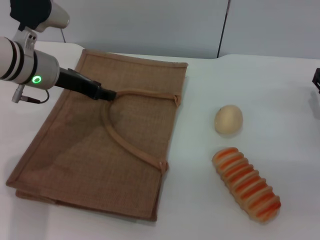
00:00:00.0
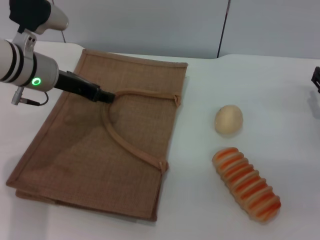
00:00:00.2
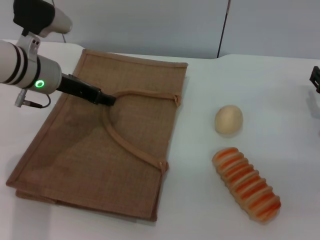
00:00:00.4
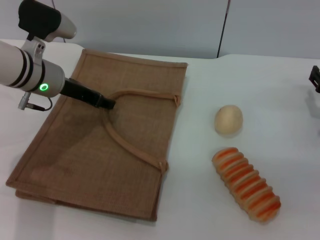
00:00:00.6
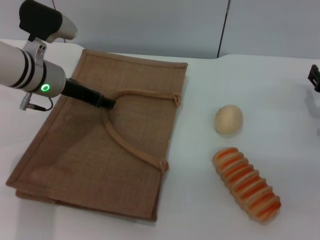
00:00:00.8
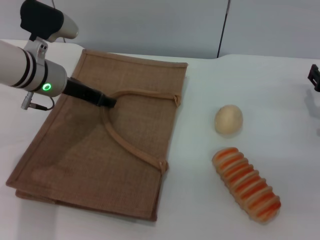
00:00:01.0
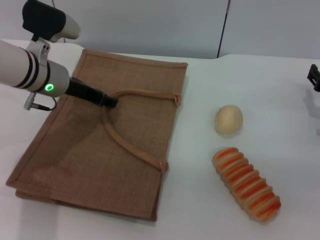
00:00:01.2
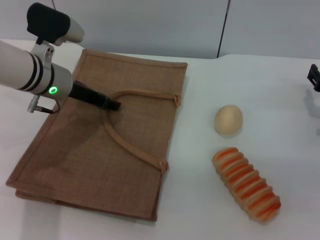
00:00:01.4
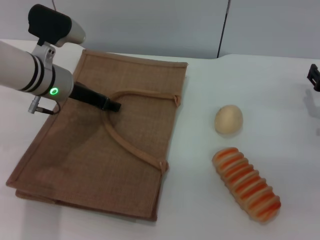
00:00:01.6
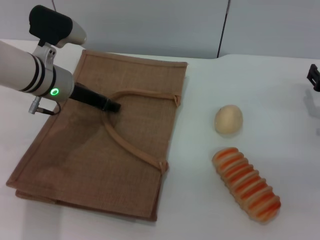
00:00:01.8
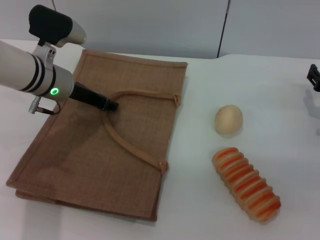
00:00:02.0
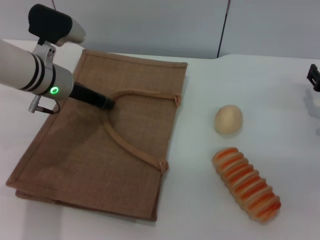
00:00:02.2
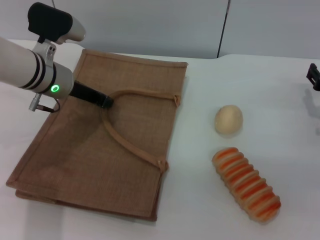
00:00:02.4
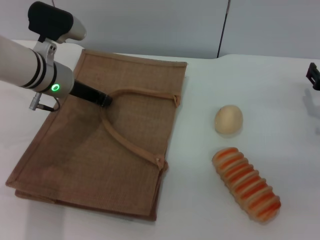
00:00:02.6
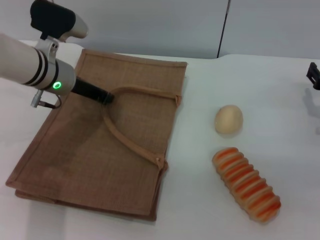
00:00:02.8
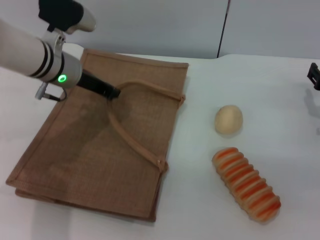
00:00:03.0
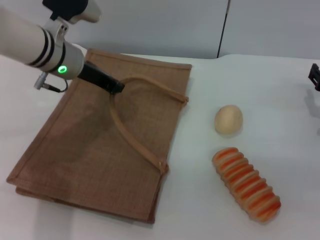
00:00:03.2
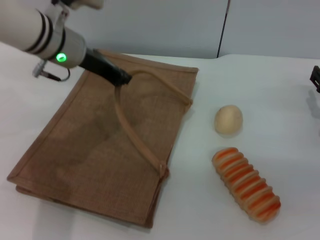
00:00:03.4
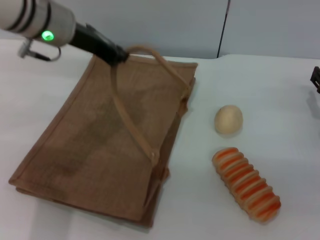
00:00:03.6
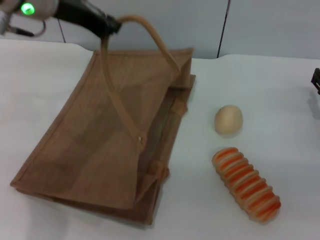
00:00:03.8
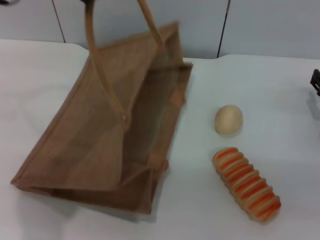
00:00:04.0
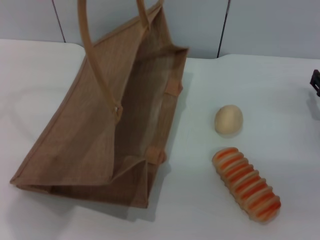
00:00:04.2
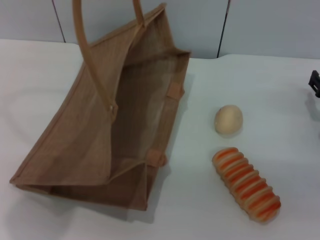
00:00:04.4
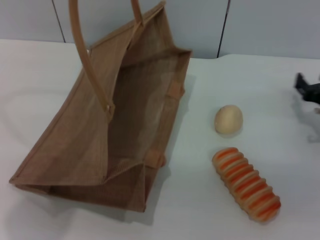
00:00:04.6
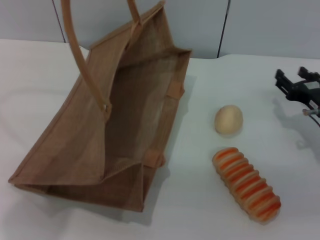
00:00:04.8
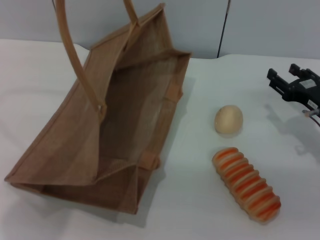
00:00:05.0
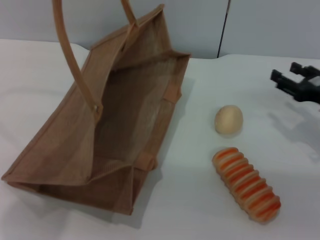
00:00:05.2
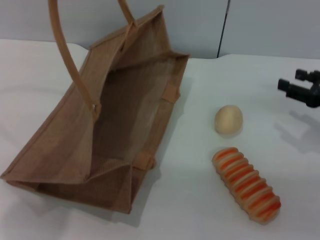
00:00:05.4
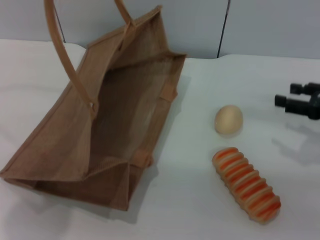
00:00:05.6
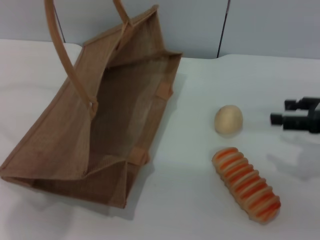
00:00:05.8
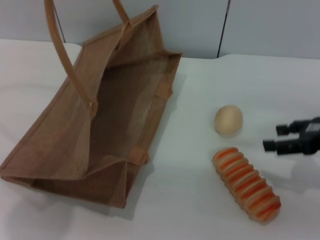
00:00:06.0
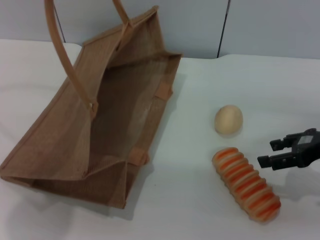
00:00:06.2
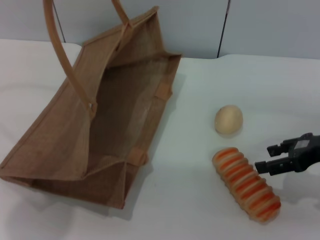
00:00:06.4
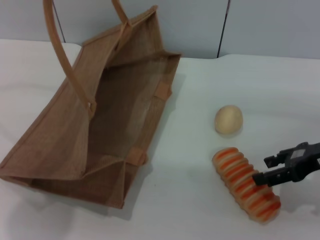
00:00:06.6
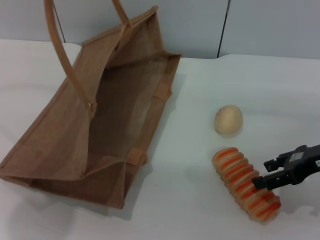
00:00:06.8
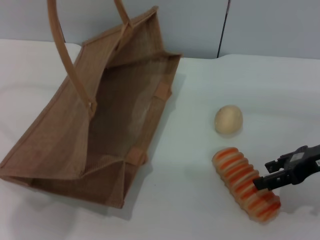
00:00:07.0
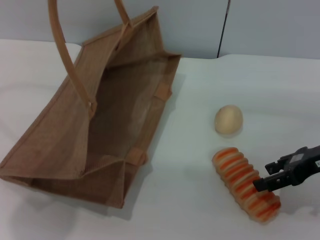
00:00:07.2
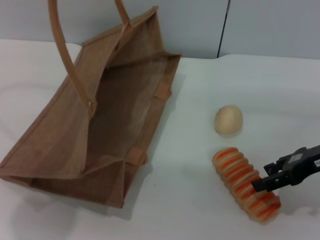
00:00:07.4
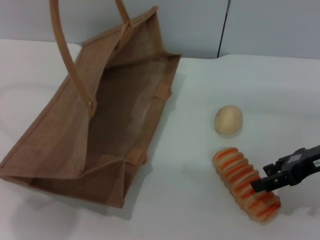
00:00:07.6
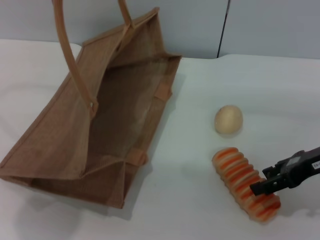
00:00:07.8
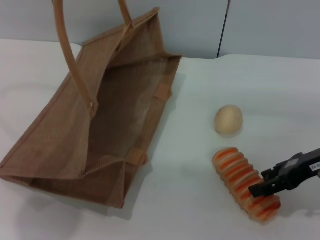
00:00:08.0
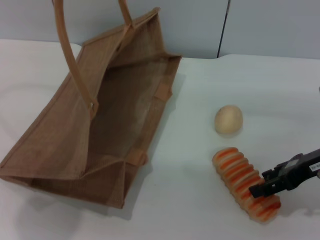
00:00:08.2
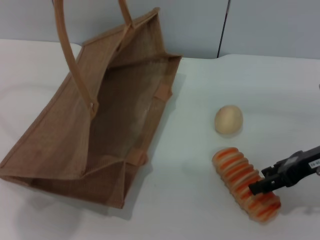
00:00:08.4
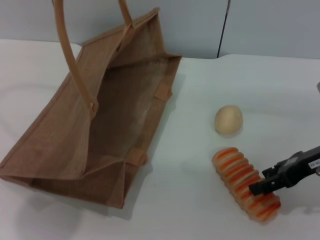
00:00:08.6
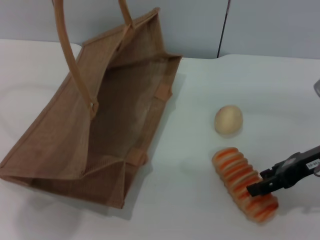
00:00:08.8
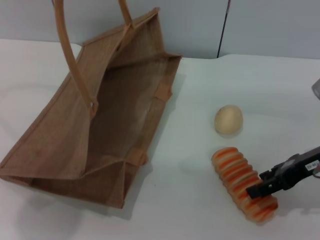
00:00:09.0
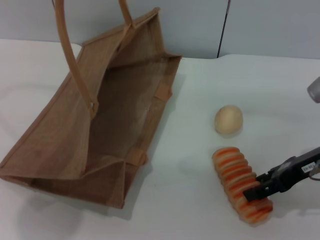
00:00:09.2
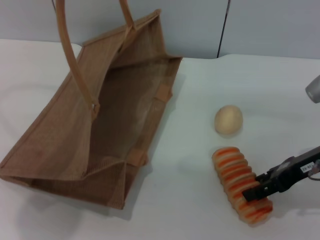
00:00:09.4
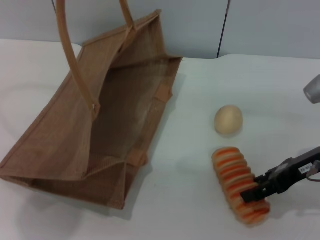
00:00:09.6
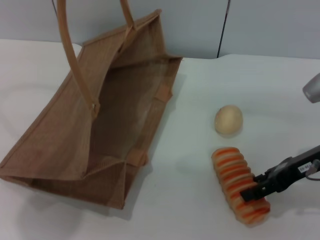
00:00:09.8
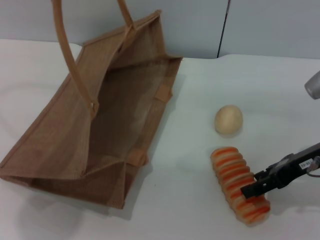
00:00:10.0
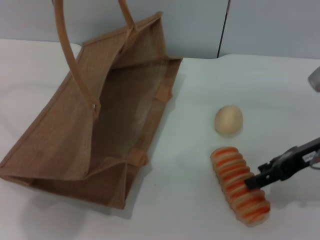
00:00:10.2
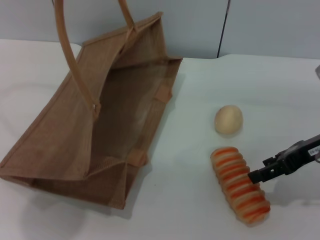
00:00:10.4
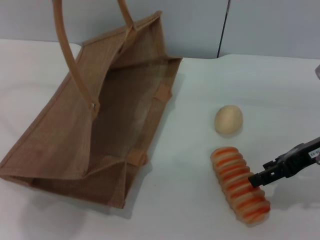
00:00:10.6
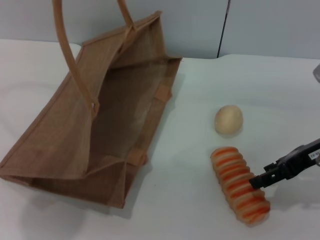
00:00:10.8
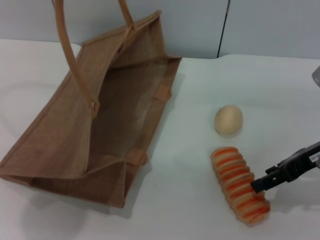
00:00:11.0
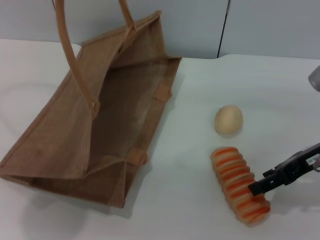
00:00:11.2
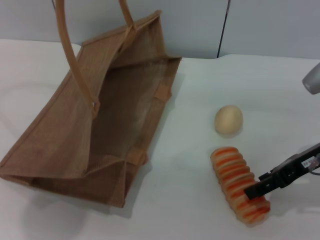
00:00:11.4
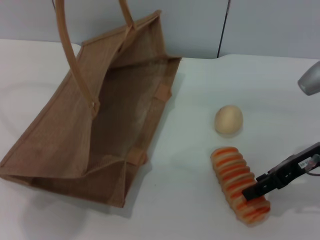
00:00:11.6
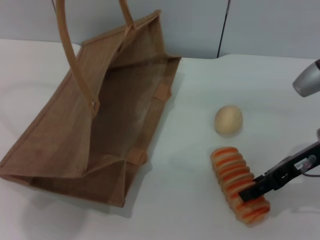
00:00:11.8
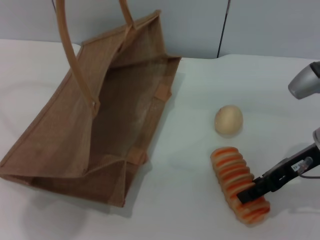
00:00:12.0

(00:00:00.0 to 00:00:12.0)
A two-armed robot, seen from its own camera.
Task of the whole recording: pick up the bread and egg yolk pastry from the table and place it in the brown handbag.
Step, 00:00:00.0 - 00:00:04.6: Lift the woven bag with the left gripper to open it.
00:00:00.0 - 00:00:01.6: There are only small adjustments of the grippers.
00:00:01.6 - 00:00:03.0: The left gripper closes up.
00:00:03.0 - 00:00:04.4: The left gripper travels upward and backward by roughly 25 cm.
00:00:04.4 - 00:00:06.0: The right gripper goes some 10 cm upward.
00:00:06.0 - 00:00:07.6: The grippers move only a little.
00:00:07.6 - 00:00:09.0: The two grippers keep their place.
00:00:09.0 - 00:00:12.0: The grippers stay close to where they were, moving slightly.

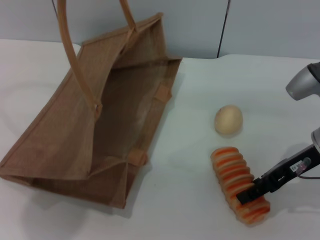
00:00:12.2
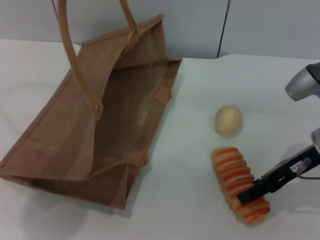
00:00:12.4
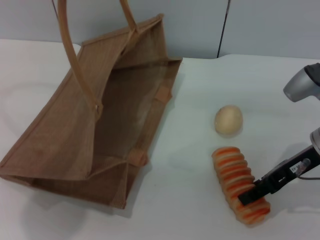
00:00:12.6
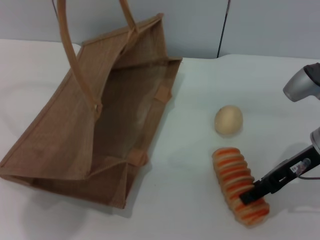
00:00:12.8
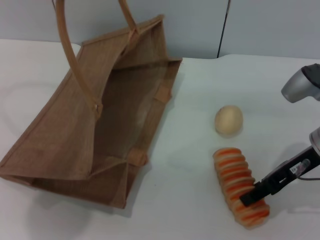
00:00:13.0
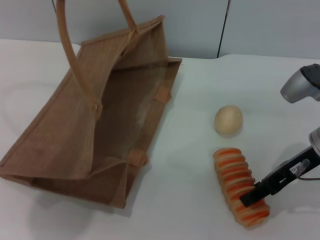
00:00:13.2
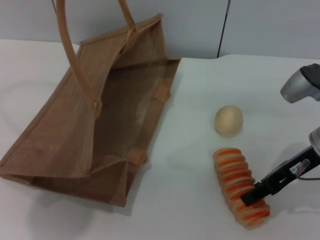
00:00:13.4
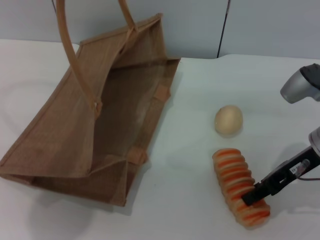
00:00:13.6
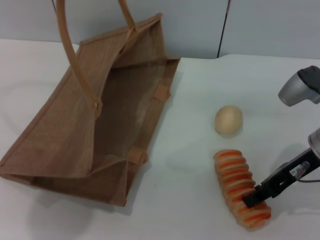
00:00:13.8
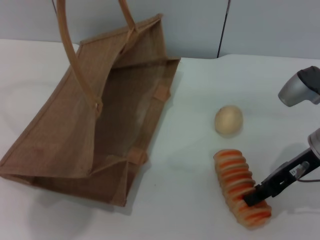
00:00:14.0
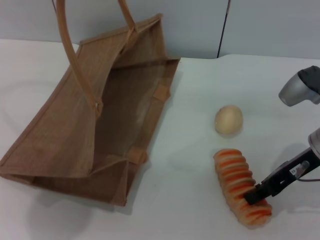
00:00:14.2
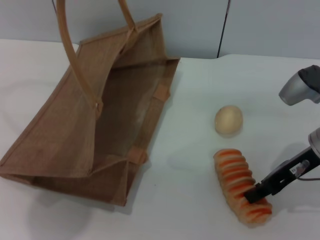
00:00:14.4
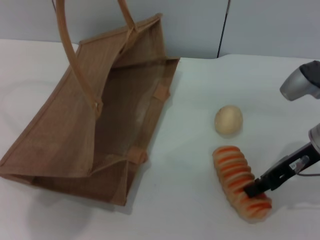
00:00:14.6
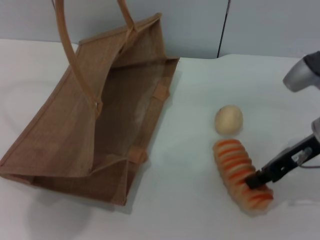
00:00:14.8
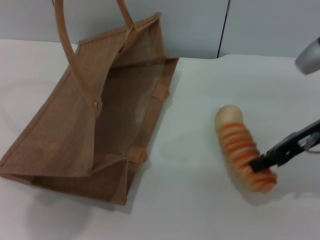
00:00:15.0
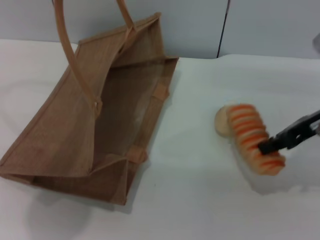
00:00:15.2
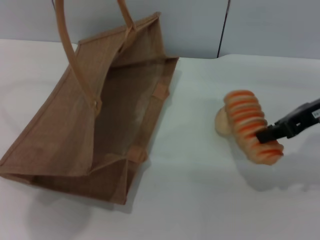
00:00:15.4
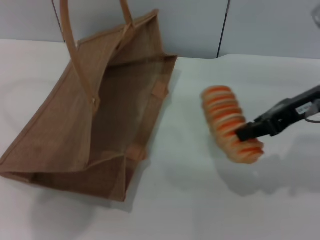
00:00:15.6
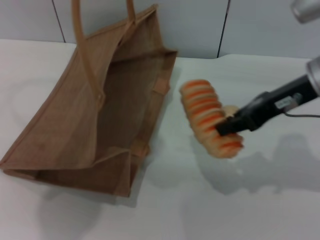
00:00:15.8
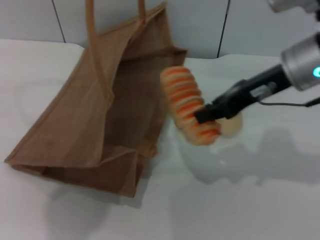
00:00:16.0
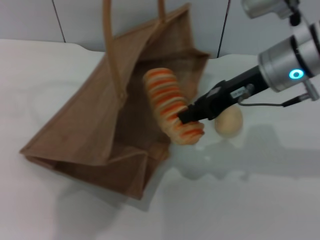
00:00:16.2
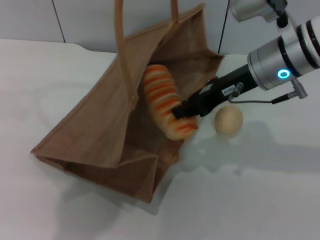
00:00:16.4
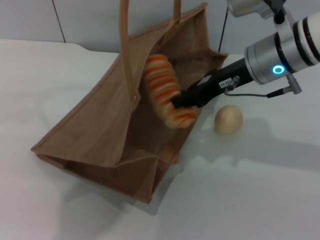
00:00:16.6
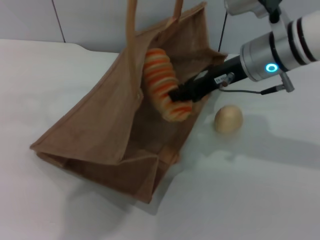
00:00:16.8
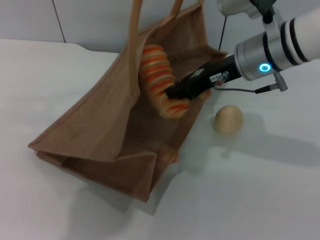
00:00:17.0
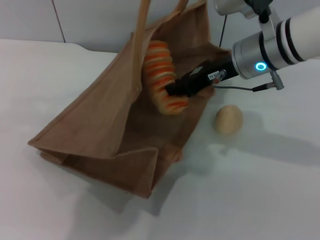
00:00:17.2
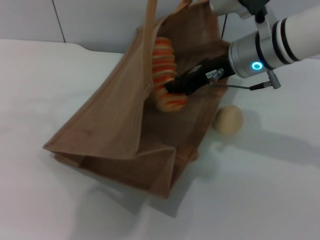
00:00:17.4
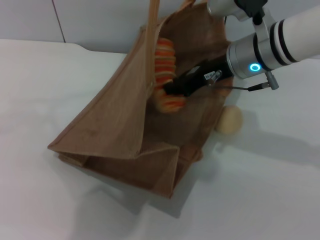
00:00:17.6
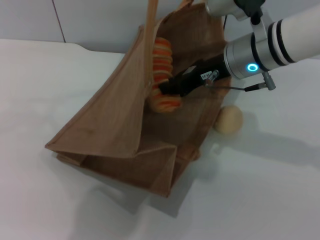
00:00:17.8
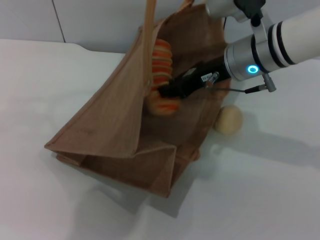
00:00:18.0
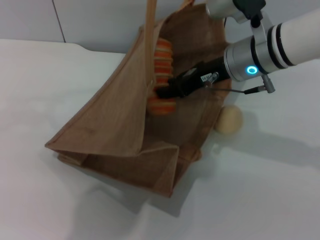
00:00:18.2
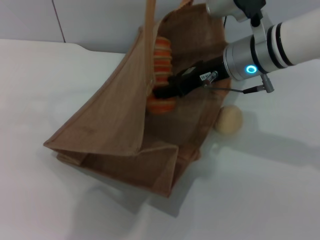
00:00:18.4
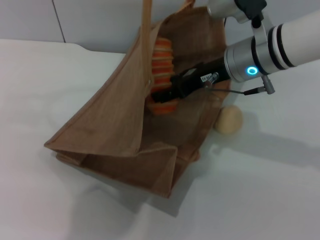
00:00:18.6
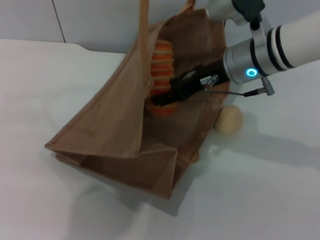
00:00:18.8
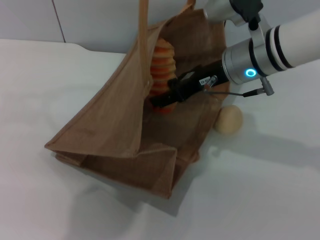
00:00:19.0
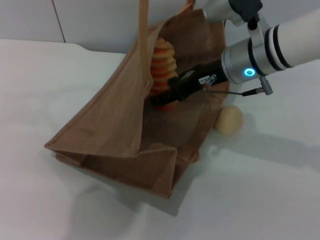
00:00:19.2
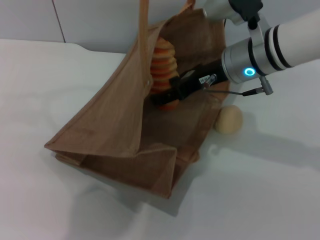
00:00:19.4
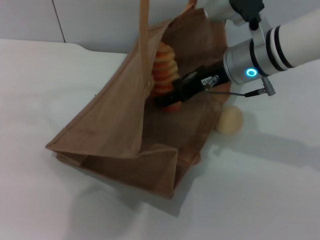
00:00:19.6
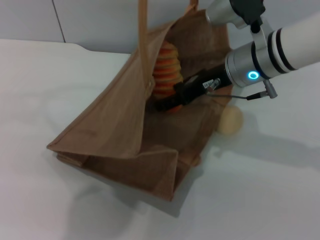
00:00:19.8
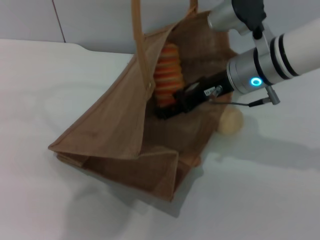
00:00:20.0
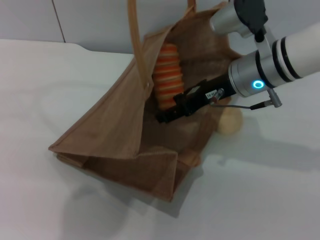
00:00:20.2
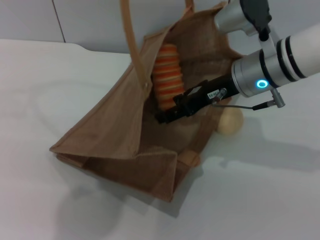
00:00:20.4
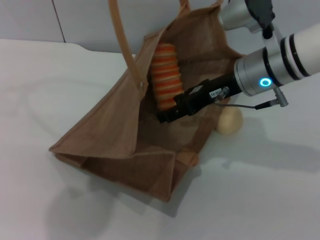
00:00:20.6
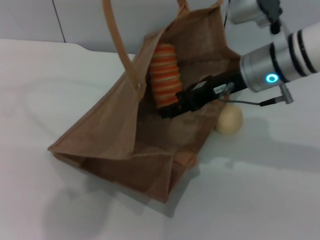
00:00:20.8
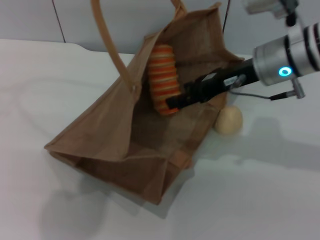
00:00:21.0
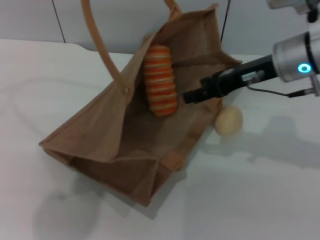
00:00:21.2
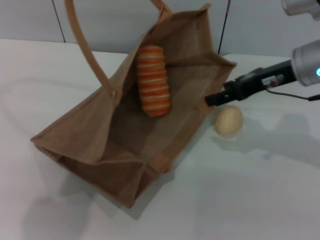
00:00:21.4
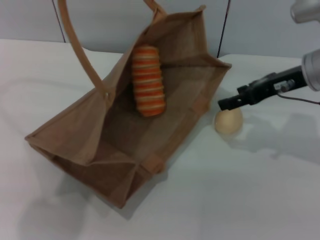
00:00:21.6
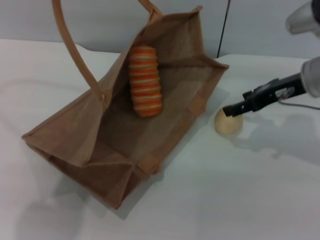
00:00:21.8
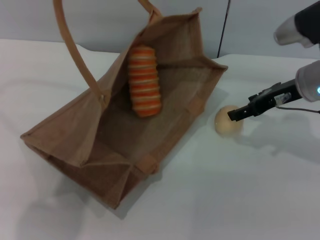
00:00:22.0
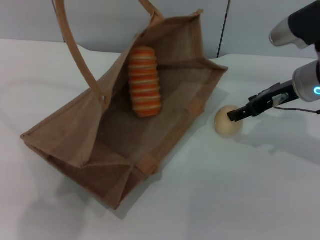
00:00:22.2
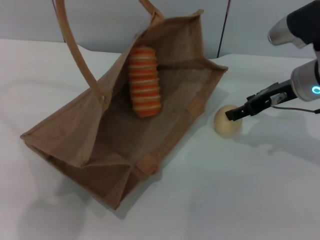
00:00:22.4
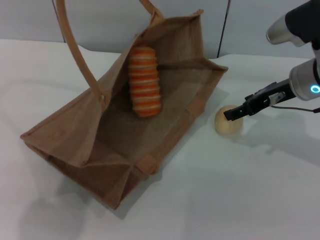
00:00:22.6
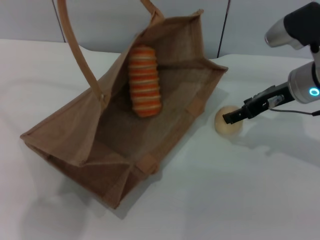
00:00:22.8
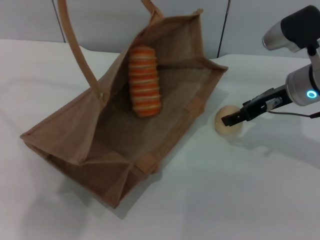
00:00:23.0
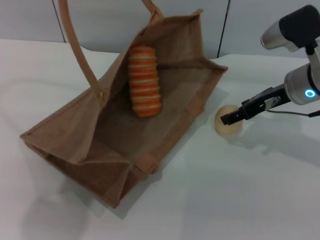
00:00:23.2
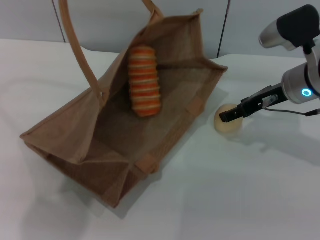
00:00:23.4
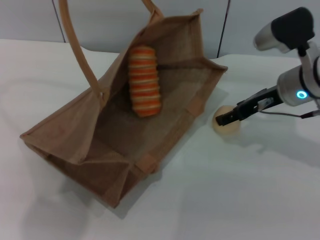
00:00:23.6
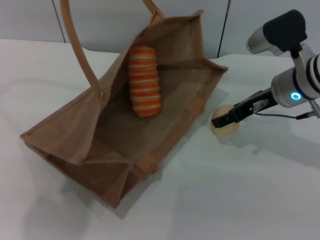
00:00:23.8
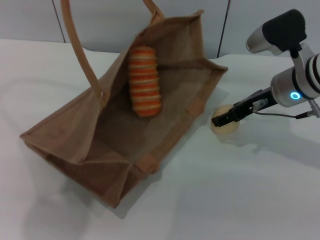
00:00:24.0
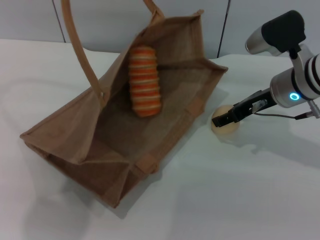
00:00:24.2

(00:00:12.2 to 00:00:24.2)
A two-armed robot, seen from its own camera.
Task of the whole recording: pick up the bread and egg yolk pastry from the table and place it in the brown handbag.
Step, 00:00:12.2 - 00:00:14.8: Pick up the bread with the right gripper.
Step, 00:00:15.0 - 00:00:20.4: Place the bread into the woven bag with the right gripper.
00:00:12.2 - 00:00:13.8: The right gripper closes.
00:00:13.8 - 00:00:15.2: The right gripper goes roughly 5 cm upward.
00:00:15.2 - 00:00:16.6: The right gripper goes some 10 cm to the left. The left gripper heads to the right, covering approximately 5 cm.
00:00:18.2 - 00:00:19.8: The right gripper opens.
00:00:19.8 - 00:00:21.2: The left gripper shifts about 5 cm to the left. Meanwhile the right gripper shifts some 5 cm to the right.
00:00:21.2 - 00:00:22.6: The right gripper changes place by roughly 5 cm.
00:00:22.6 - 00:00:24.2: The grippers make only small movements.
